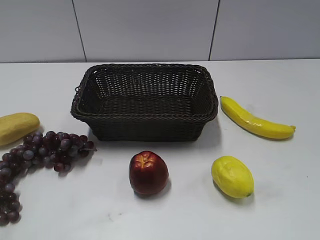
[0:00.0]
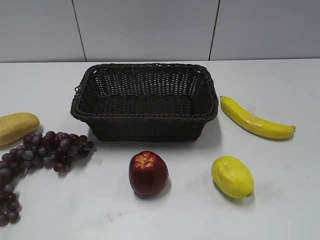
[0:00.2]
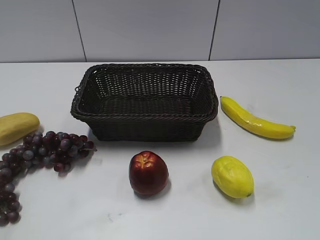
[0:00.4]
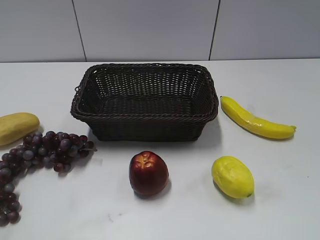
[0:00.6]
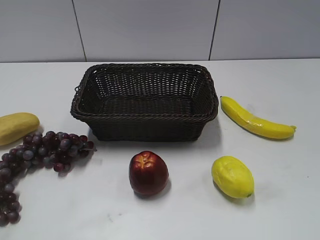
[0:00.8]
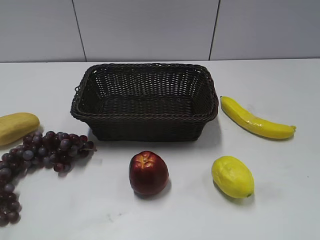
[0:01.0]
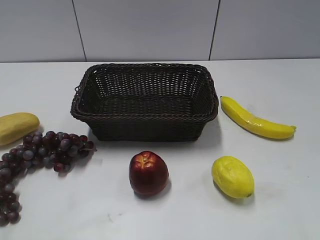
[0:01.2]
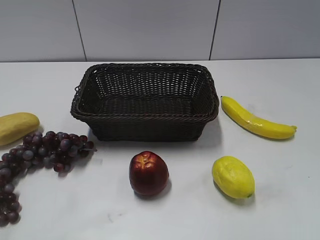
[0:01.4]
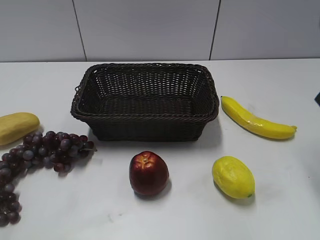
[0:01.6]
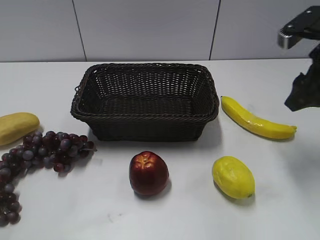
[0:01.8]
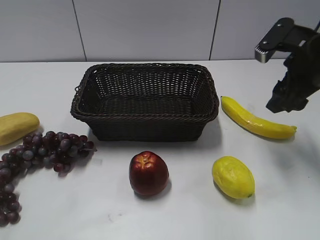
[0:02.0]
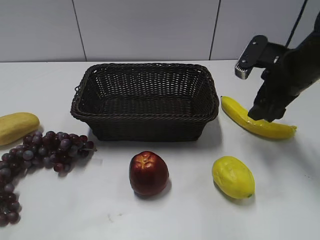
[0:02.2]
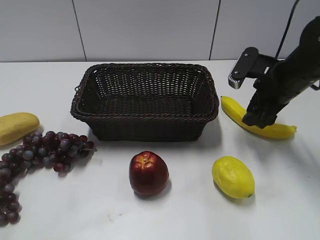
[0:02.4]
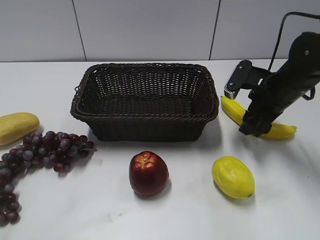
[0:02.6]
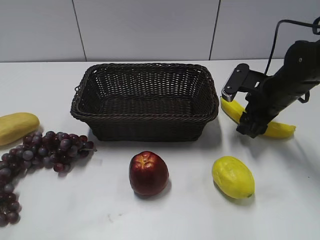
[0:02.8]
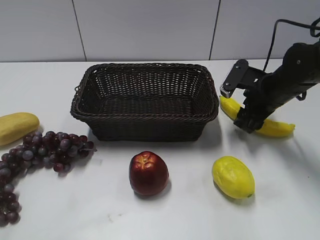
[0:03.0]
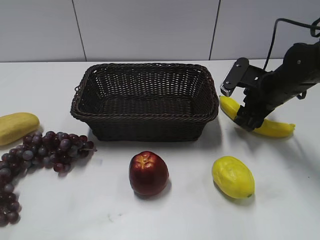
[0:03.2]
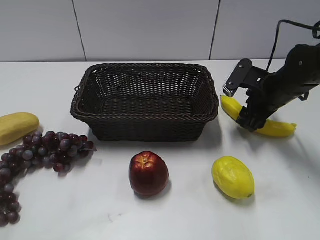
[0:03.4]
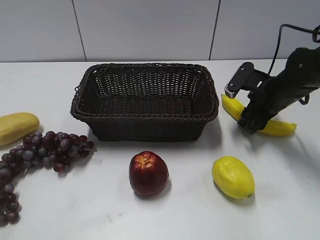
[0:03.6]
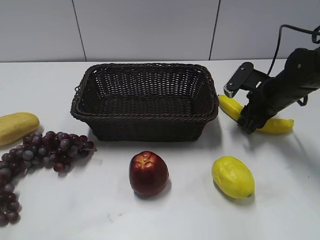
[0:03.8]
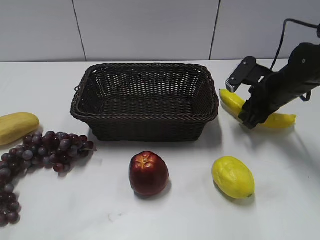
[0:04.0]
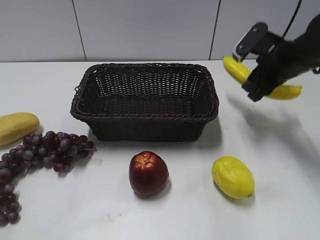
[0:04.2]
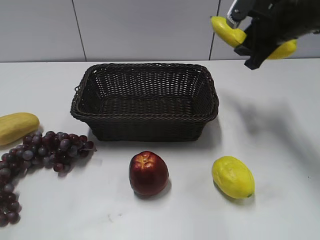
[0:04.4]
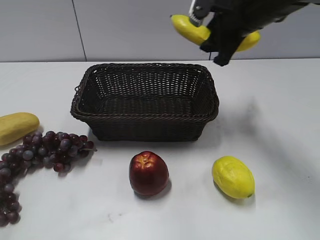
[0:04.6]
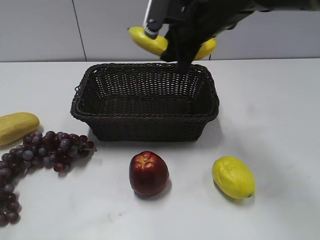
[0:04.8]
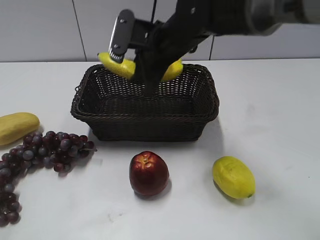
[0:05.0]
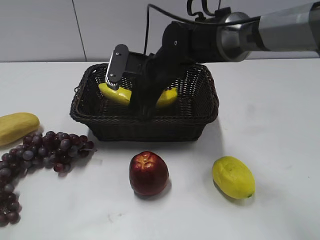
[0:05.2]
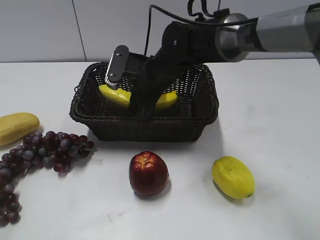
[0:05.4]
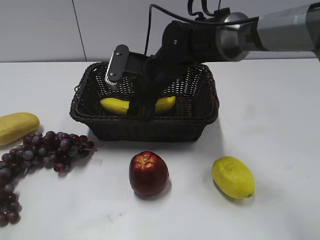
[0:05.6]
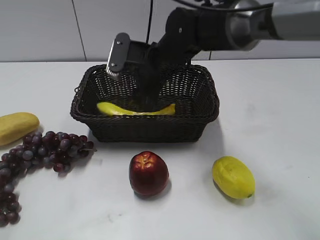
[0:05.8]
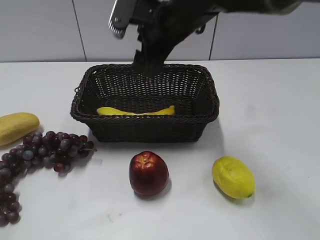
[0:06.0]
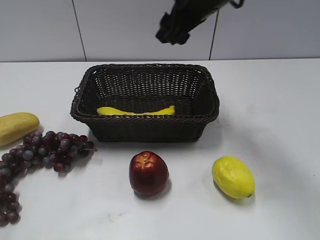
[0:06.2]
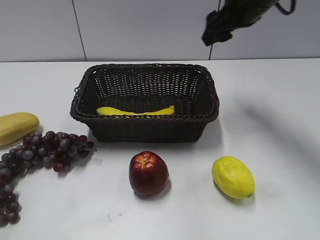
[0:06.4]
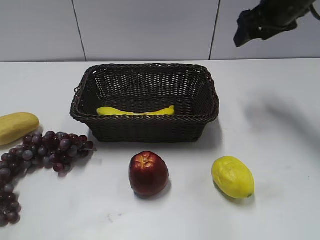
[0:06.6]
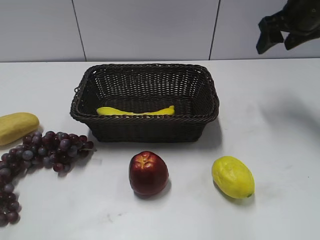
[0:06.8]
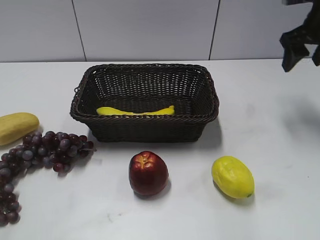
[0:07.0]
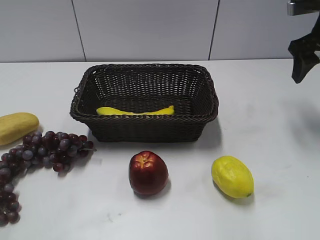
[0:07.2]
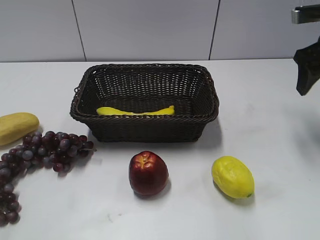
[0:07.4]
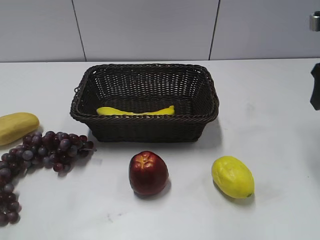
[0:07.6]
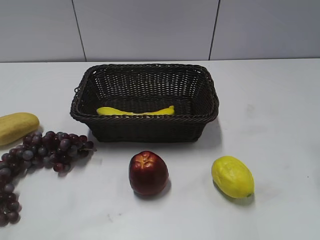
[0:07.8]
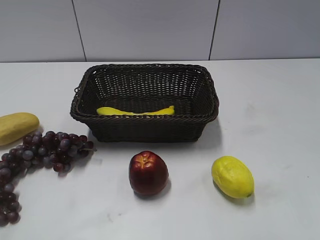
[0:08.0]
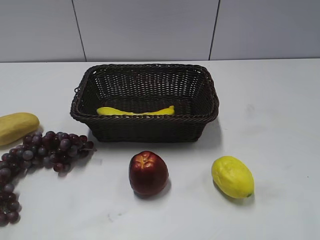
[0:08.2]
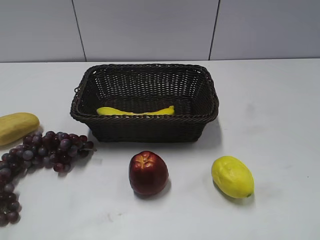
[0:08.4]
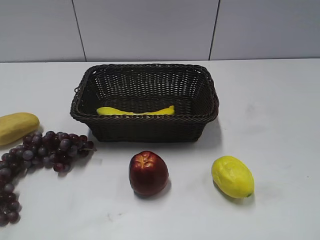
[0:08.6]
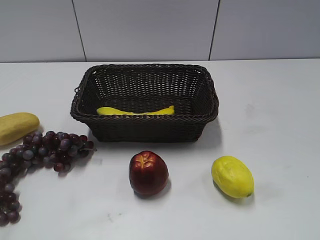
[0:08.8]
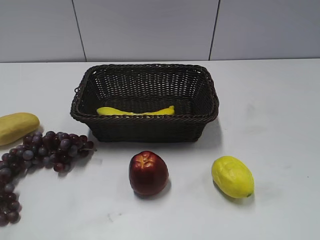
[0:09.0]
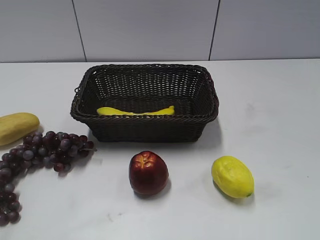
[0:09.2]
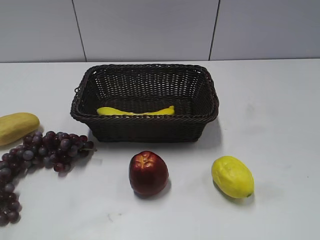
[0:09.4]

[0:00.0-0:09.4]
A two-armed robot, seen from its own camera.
Step, 0:00.8 to 0:03.8: Grasp the banana with right gripper.
Step, 0:04.0 to 0:05.8: Place the banana in the basket with right gripper.
0:01.6 to 0:03.2: The right gripper moves downward and forward, roughly 20 cm.
0:03.2 to 0:04.8: The left gripper closes its fingers. The right gripper shifts approximately 20 cm to the left and upward, and closes its fingers.
0:04.8 to 0:06.2: The right gripper reaches roughly 10 cm downward, then returns, and opens its fingers; the left gripper closes up.
0:06.2 to 0:07.8: The right gripper shifts about 25 cm to the right and backward.
